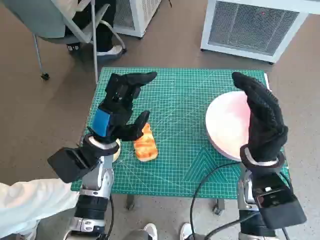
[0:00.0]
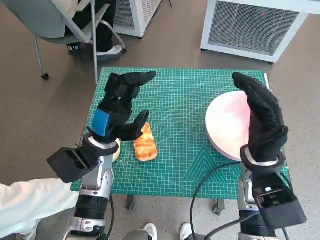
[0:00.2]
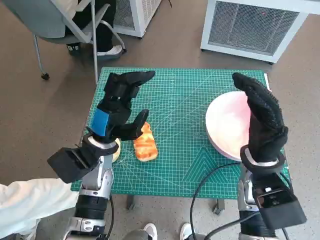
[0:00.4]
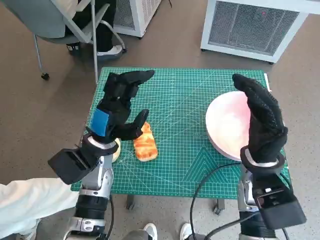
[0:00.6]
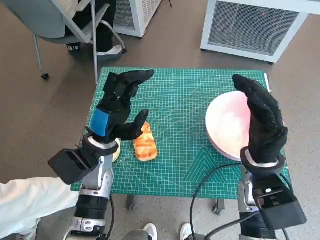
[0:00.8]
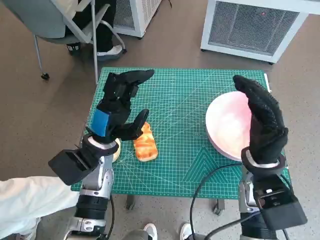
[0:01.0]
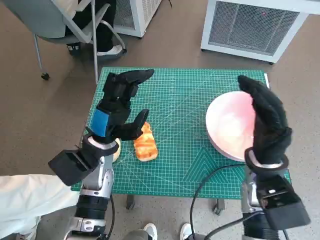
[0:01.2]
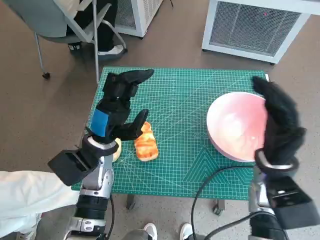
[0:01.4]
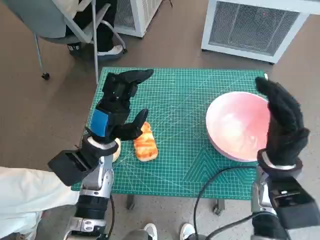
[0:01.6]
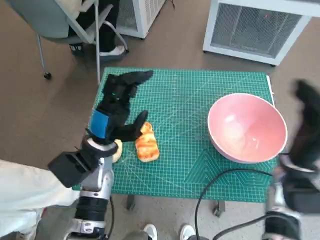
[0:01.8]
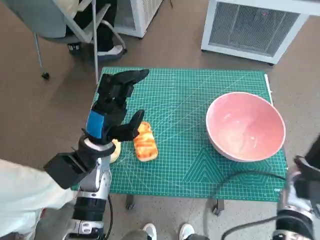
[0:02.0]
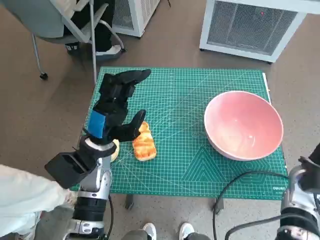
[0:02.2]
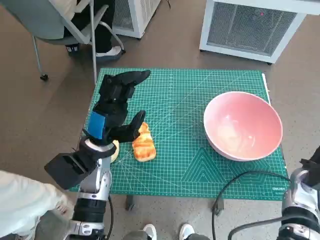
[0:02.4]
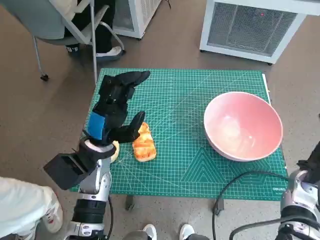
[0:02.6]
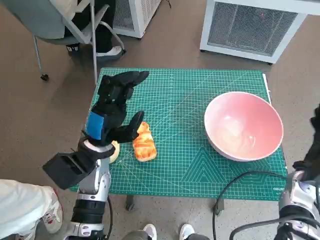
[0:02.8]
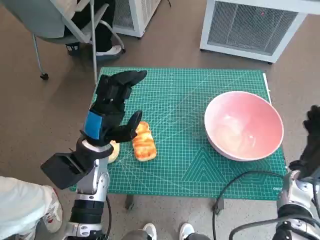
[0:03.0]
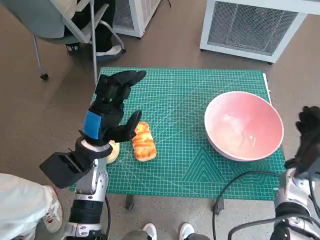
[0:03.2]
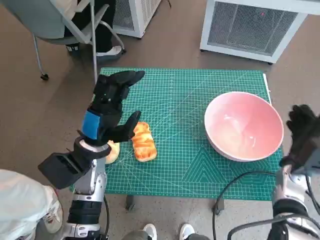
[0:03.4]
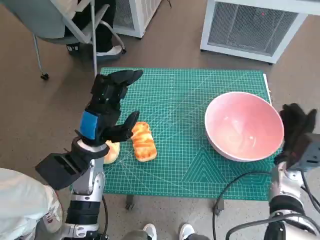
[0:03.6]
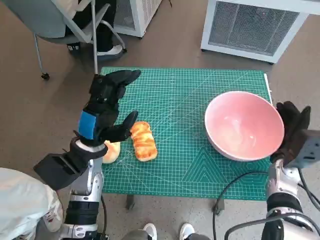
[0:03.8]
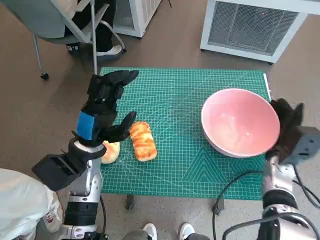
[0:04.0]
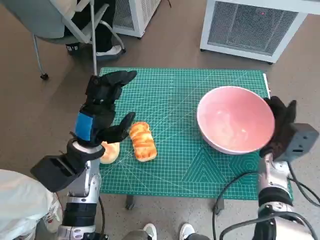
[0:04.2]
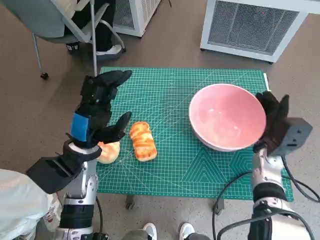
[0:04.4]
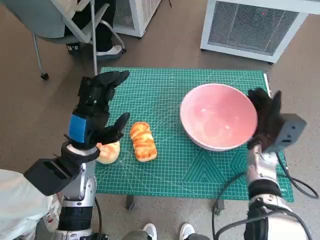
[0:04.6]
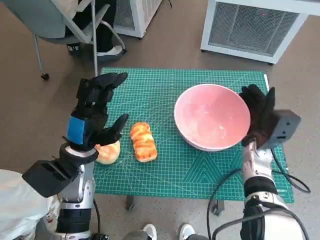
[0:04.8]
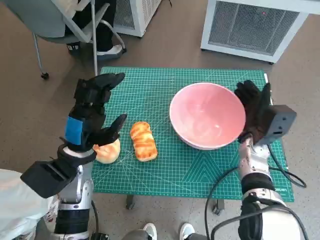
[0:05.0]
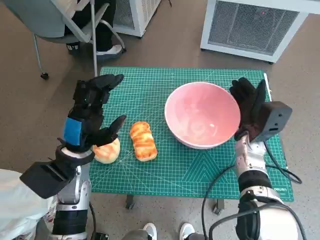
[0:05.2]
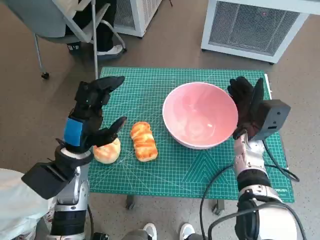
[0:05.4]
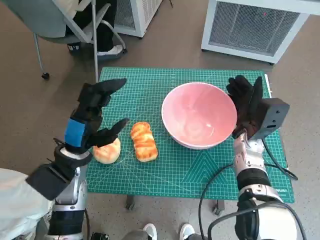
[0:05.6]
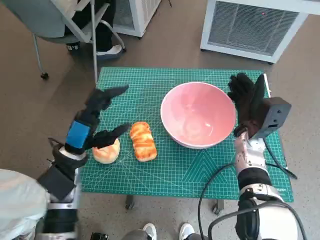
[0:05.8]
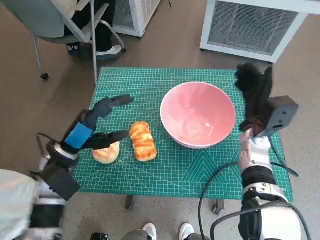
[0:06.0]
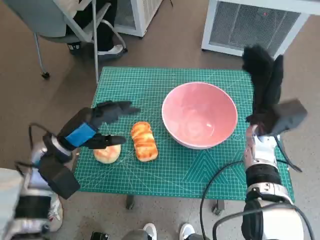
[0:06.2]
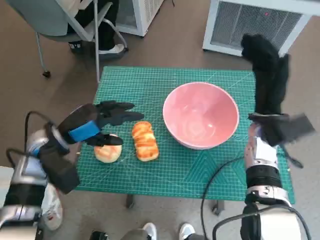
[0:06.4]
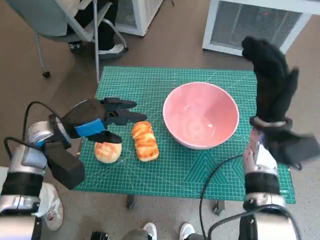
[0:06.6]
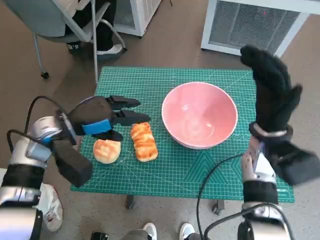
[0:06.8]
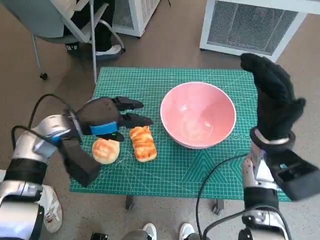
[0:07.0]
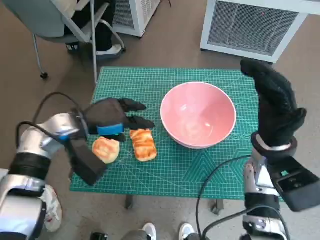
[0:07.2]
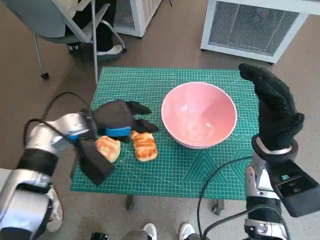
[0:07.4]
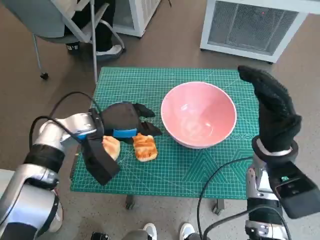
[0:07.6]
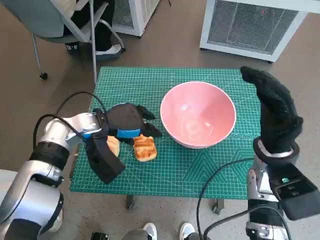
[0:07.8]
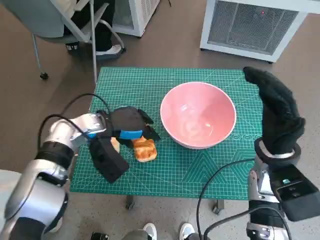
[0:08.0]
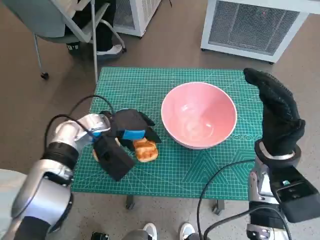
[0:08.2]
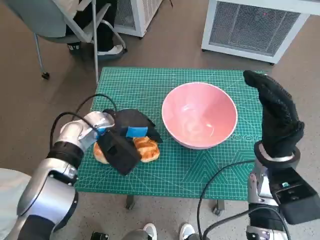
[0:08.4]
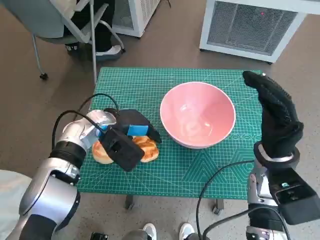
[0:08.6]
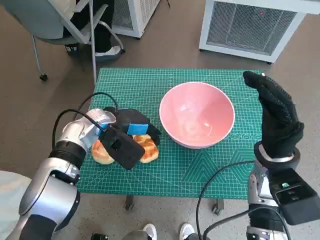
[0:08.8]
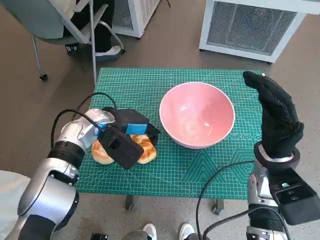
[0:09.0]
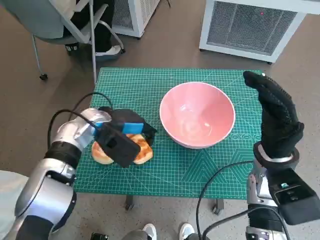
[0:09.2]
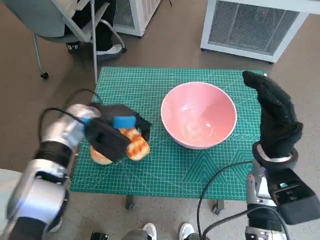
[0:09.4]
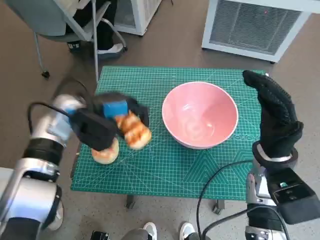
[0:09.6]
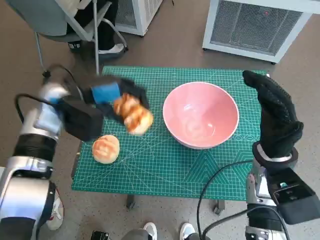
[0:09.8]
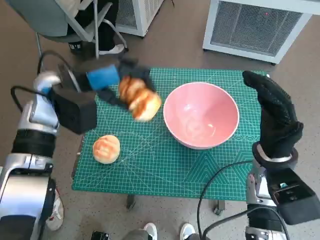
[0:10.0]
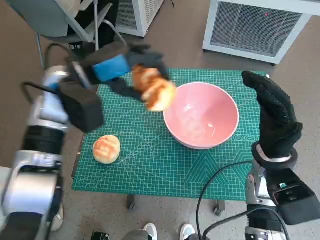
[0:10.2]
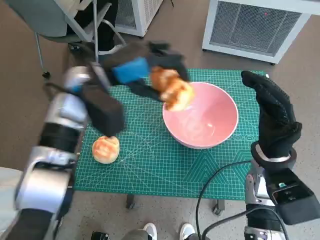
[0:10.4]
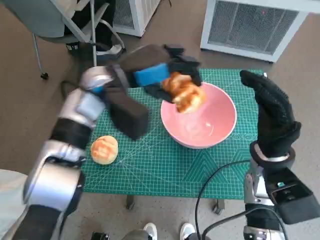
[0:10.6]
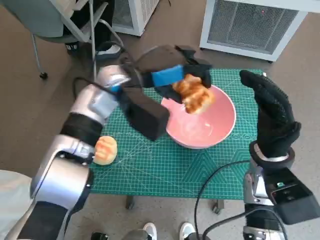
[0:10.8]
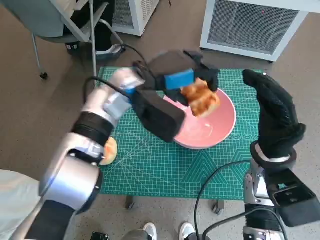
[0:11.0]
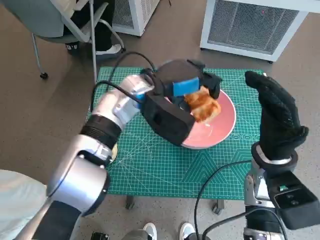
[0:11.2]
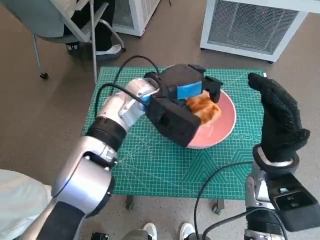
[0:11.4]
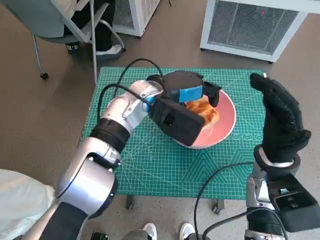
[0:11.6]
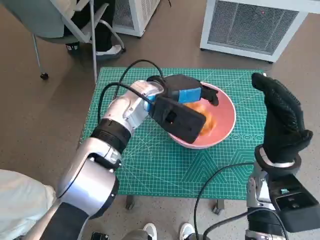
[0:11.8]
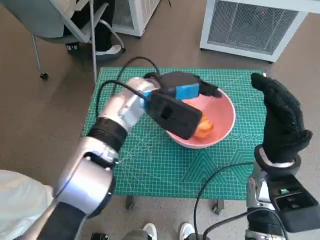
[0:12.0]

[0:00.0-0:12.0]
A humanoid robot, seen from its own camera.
Task of the whole recording: Push the bowl to the center of the table and put the bread into the bowl.
Step, 0:00.0 to 0:05.6: Move the pink bowl to the center of table with right hand.
Step, 0:05.8 to 0:09.0: Grasp the long bread with left hand.
0:01.6 to 0:03.0: The right hand is displaced to the right and downward by approximately 10 cm.
0:03.0 to 0:04.4: The right hand goes about 5 cm to the left.
0:04.4 to 0:06.0: The right hand changes place by roughly 5 cm.
0:06.0 to 0:07.6: The left hand heads forward, covering roughly 5 cm. The right hand moves backward, approximately 5 cm.
0:09.0 to 0:10.4: The left hand moves upward, approximately 10 cm.
0:10.4 to 0:12.0: The left hand heads to the right, covering approximately 10 cm.

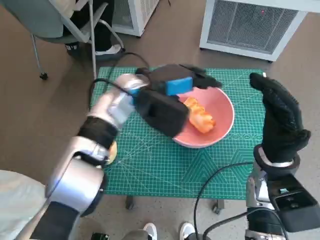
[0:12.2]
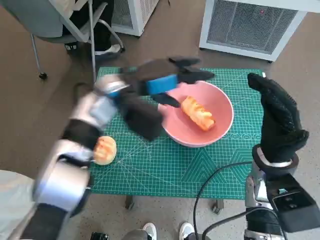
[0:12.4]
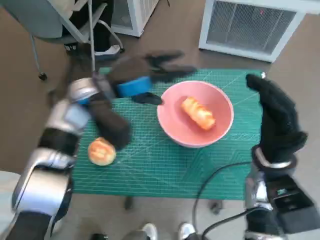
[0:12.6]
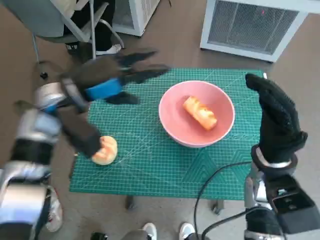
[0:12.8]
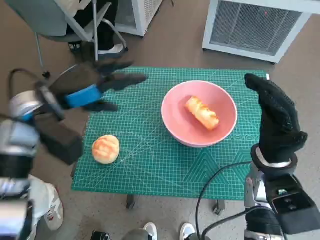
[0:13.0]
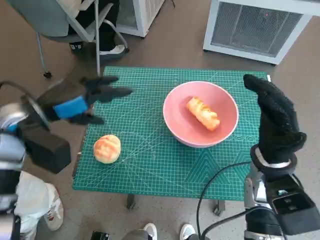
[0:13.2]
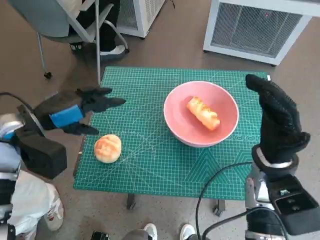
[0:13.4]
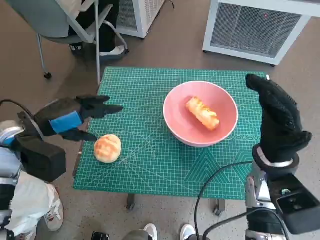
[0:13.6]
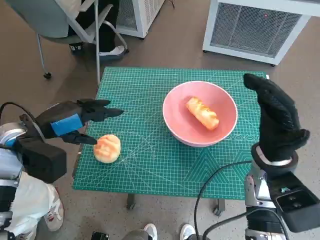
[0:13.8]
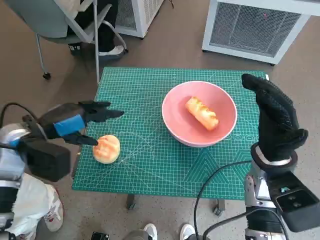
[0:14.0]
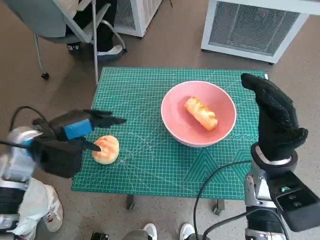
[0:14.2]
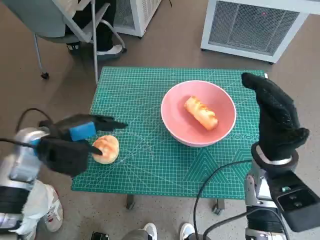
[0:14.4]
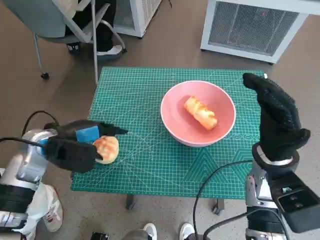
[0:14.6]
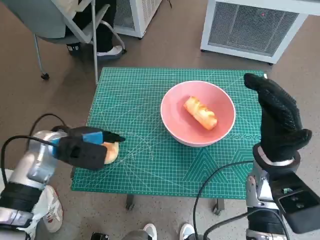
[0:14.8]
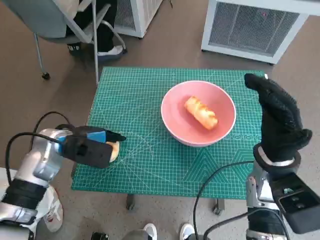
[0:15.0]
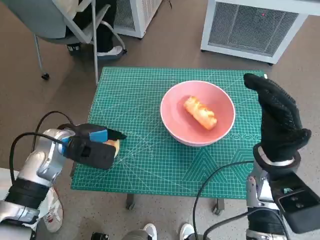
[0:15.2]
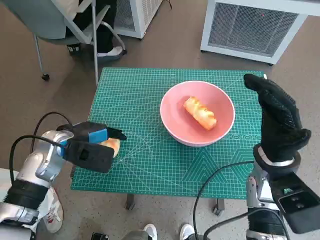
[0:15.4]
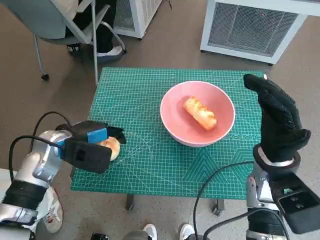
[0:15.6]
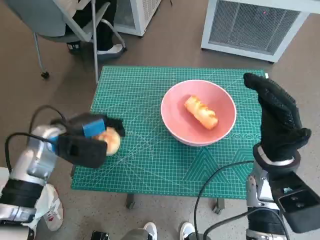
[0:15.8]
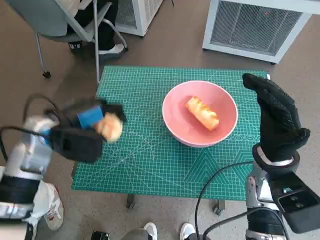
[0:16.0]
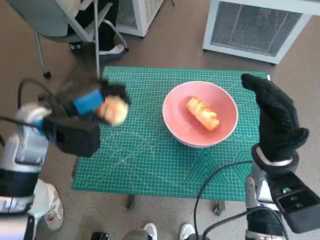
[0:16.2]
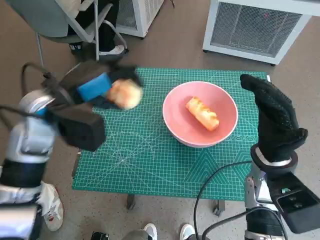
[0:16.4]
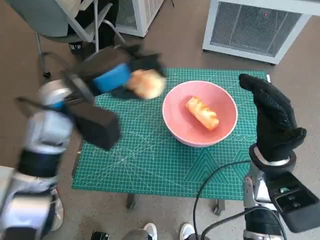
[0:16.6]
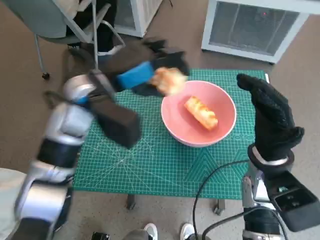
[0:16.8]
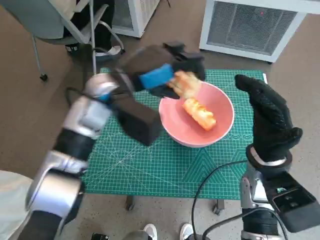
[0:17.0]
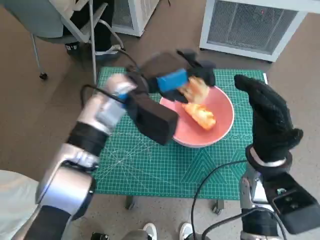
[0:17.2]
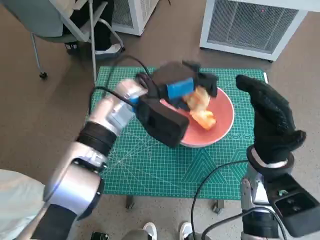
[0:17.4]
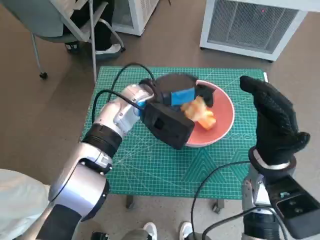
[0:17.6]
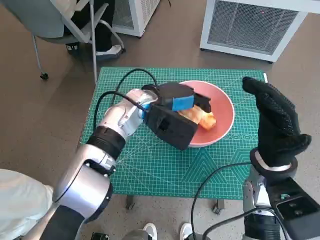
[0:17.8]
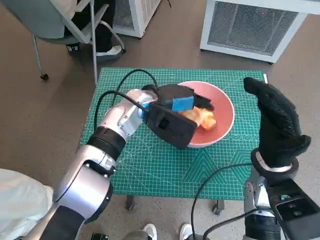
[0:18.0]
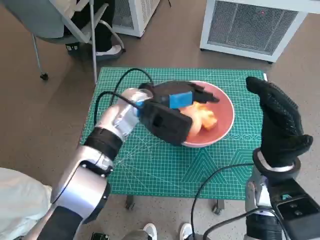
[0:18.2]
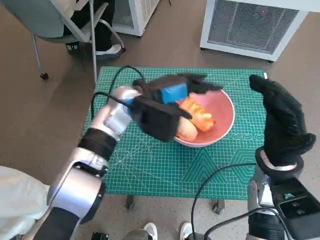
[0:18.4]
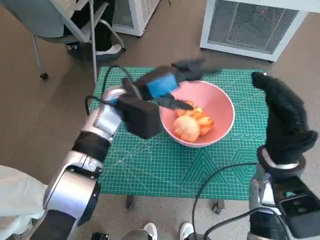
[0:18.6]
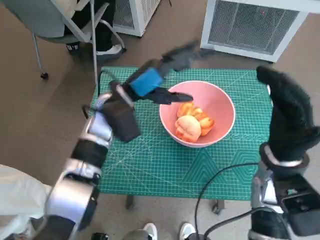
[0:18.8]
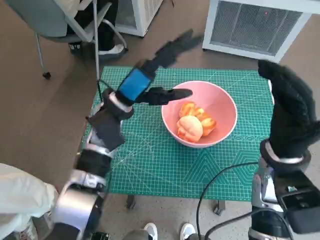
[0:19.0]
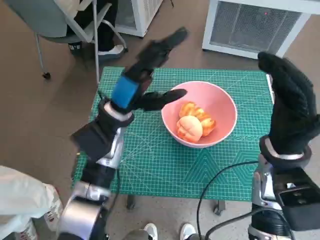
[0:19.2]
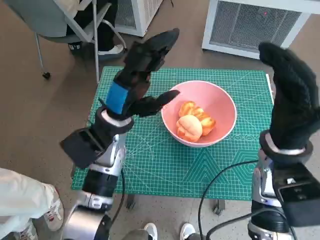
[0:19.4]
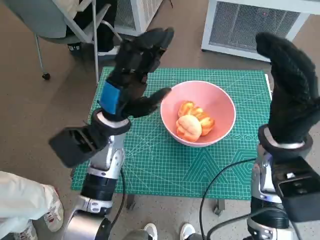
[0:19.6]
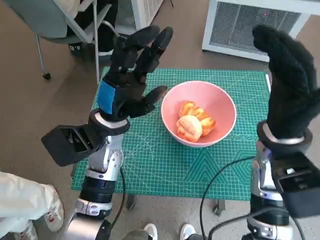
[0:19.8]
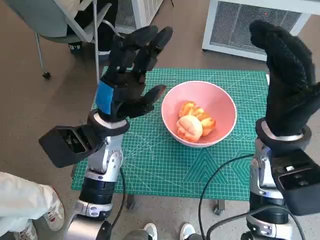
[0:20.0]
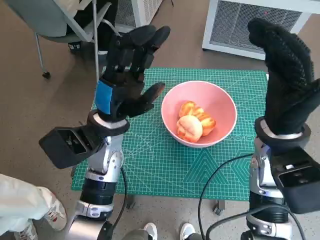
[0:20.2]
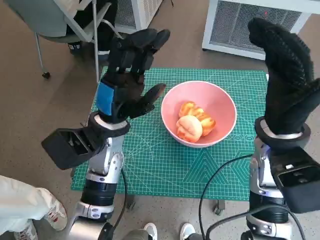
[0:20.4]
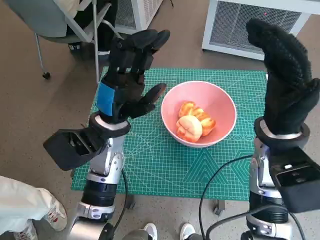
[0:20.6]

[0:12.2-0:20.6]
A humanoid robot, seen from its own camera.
Task of the whole recording: Push the bowl to the center of the table and put the bread into the bowl.
Step, 0:12.8 to 0:15.4: Grasp the round bread with left hand.
Step, 0:15.6 to 0:18.8: Place the round bread in pink bowl with left hand.
0:12.2 to 0:13.6: The left hand heads to the left and backward, covering roughly 20 cm.
0:13.6 to 0:15.0: The left hand is displaced downward by approximately 5 cm.
0:15.0 to 0:16.4: The left hand is displaced upward by roughly 10 cm.
0:16.4 to 0:17.8: The left hand heads to the right, covering approximately 15 cm.
0:17.8 to 0:19.2: The left hand moves to the left, about 5 cm.

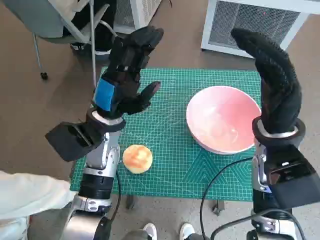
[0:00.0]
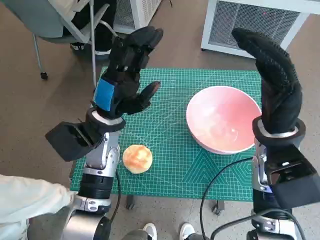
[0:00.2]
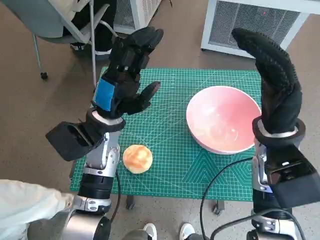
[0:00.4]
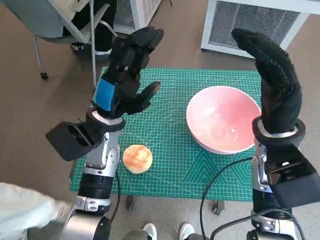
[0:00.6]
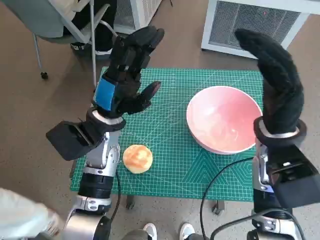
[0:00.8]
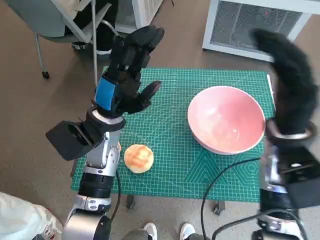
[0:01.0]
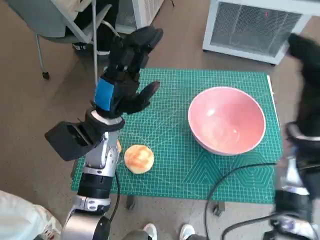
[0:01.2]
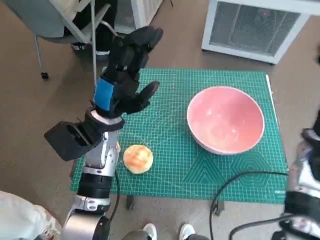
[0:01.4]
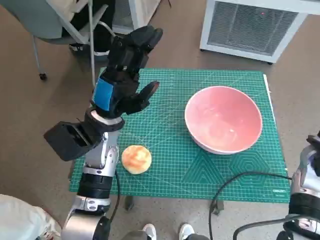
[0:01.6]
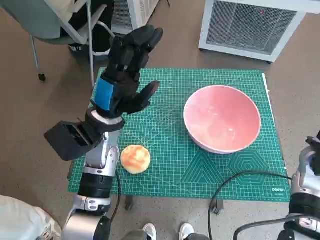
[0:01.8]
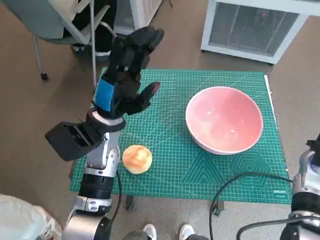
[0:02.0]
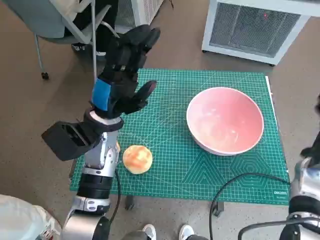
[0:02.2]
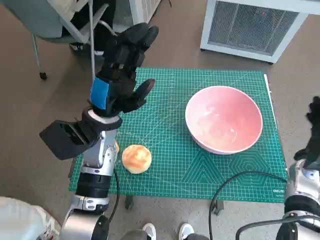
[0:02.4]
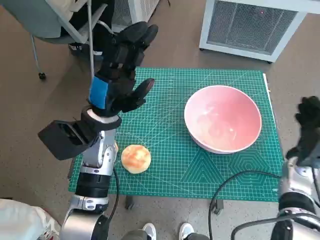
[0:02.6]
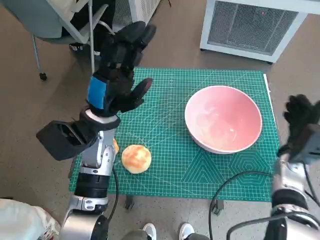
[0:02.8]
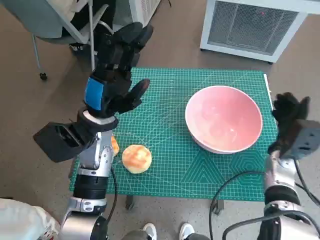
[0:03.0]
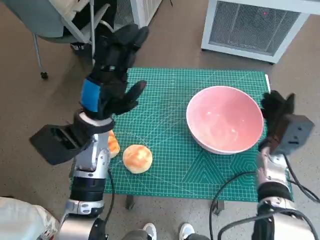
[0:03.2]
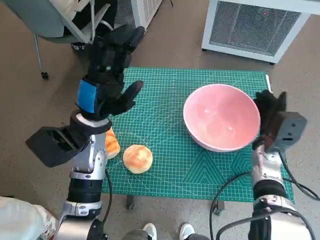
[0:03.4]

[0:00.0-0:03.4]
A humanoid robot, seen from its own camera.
Task of the whole recording: Push the bowl to the center of the table and put the bread into the bowl.
0:01.6 to 0:03.4: The right hand moves downward and to the left, about 10 cm.
